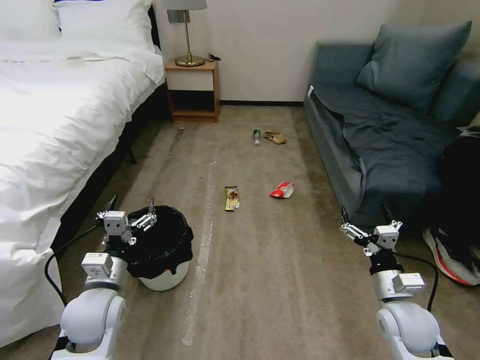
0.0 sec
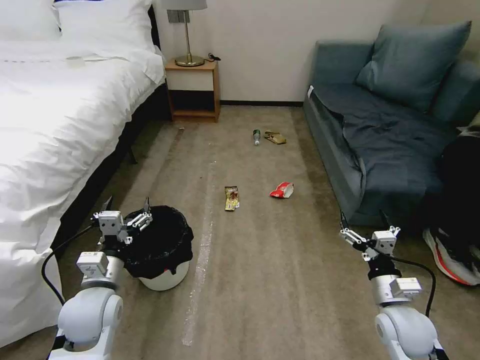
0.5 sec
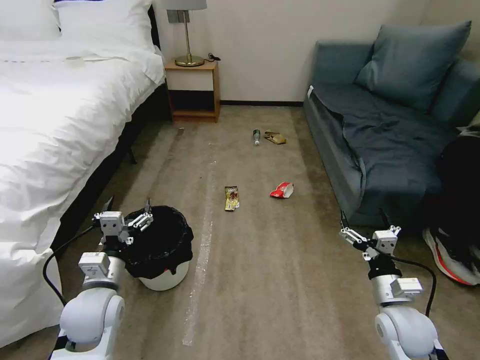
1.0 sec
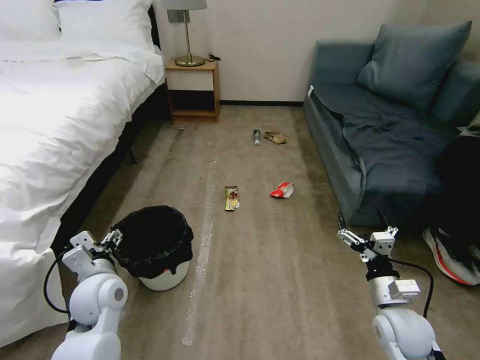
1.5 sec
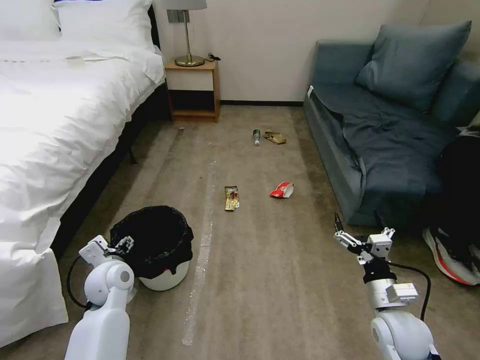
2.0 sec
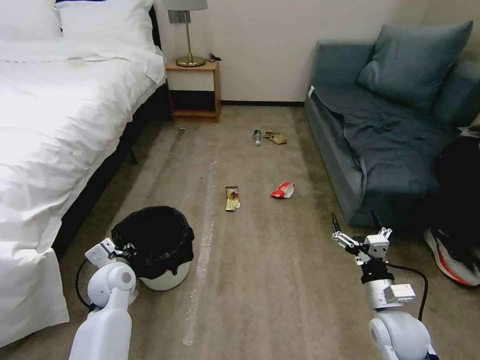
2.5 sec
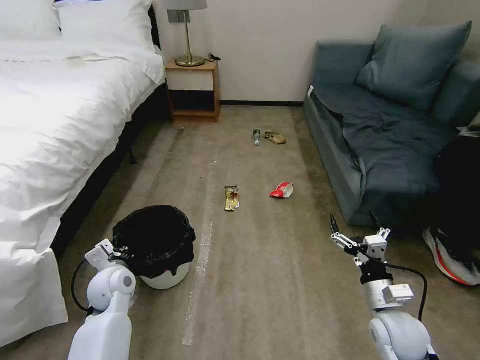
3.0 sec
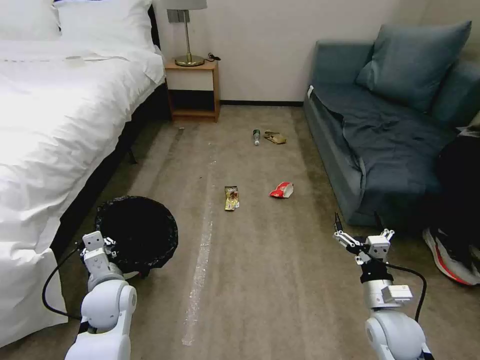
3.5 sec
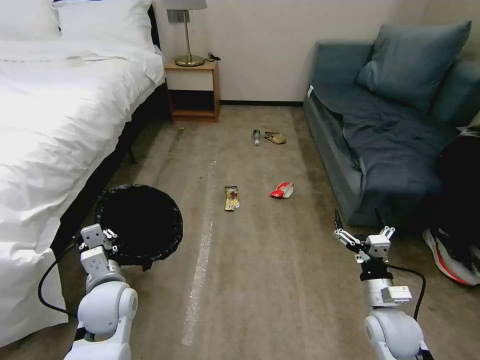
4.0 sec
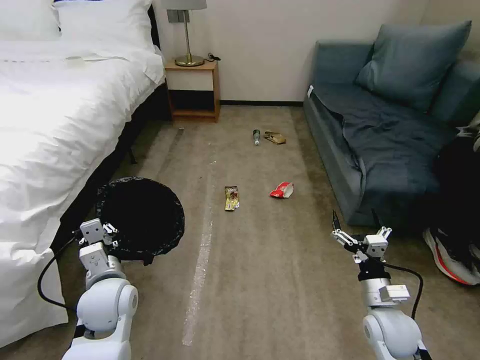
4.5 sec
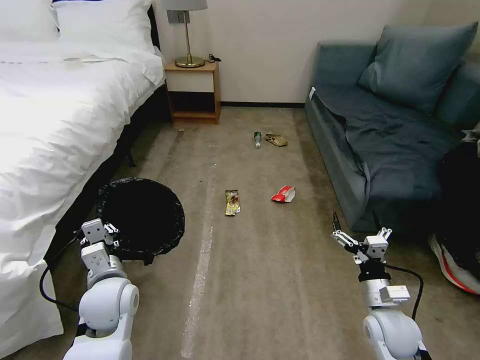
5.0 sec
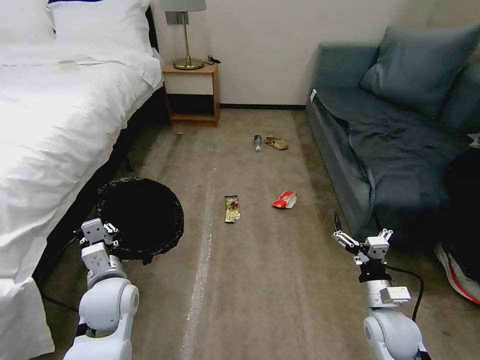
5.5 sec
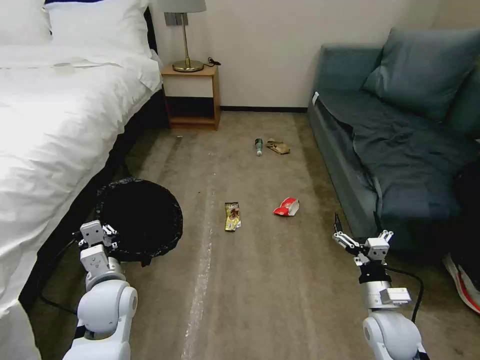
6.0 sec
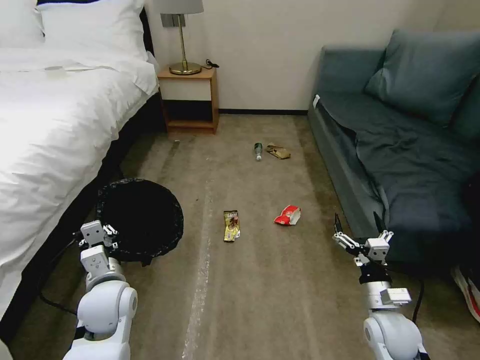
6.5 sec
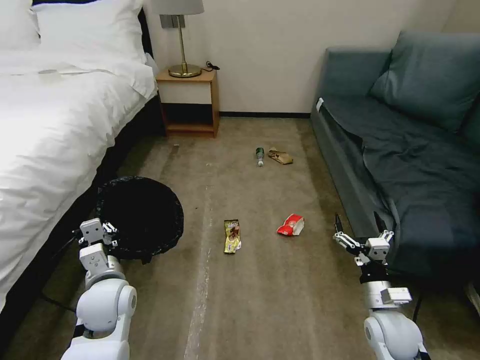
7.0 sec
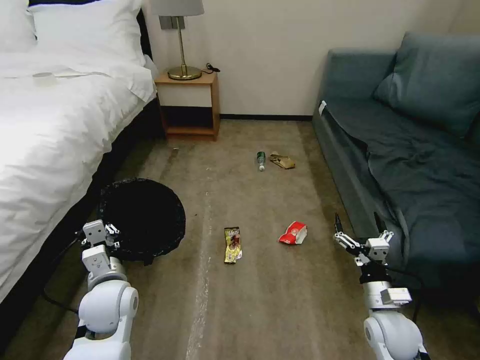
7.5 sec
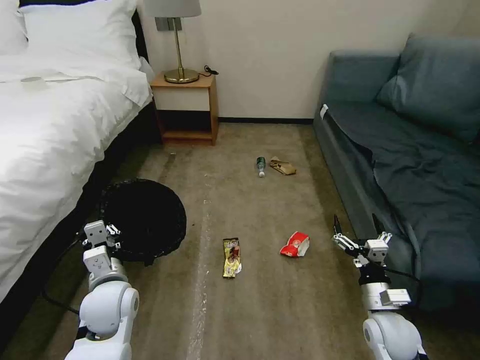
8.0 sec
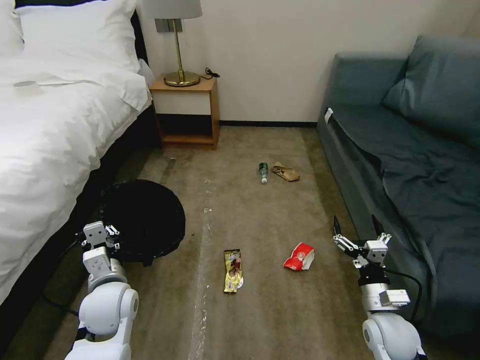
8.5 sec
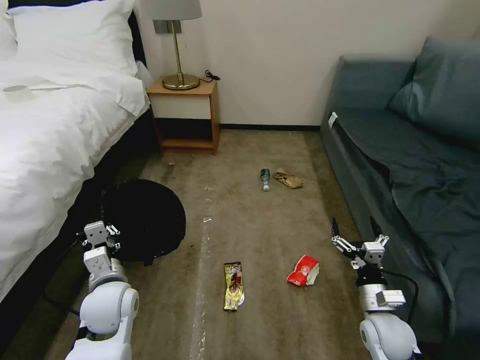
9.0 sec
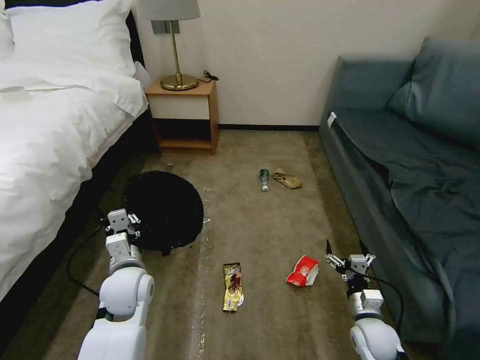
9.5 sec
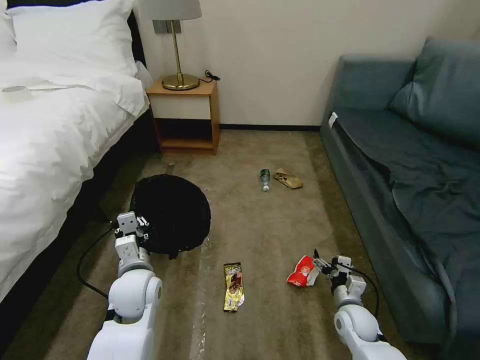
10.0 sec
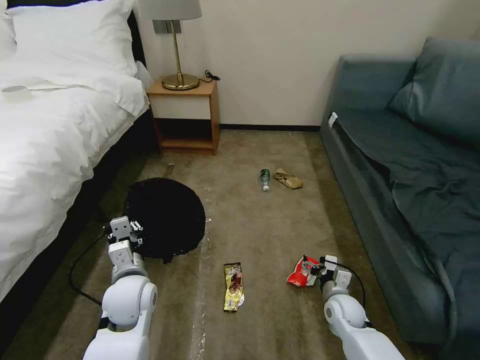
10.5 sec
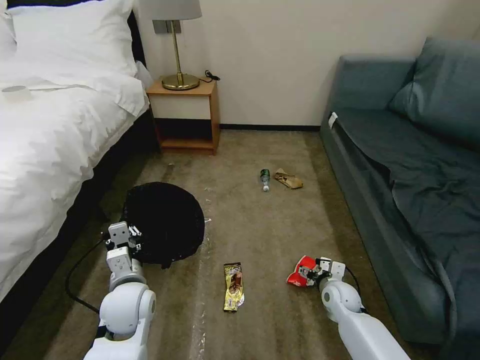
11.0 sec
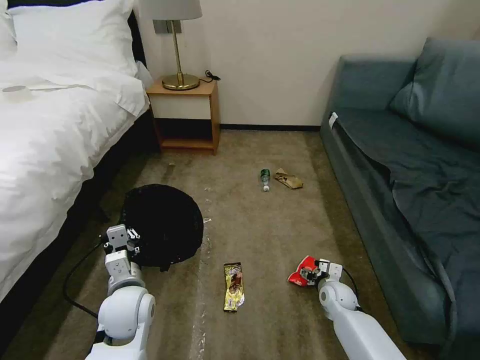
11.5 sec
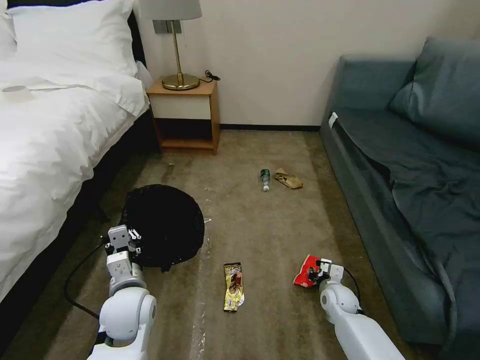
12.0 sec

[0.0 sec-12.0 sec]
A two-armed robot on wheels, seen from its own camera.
Task of the whole recording: Pick up the trash bin, then pick up the garbage on the floor and place it into the trash bin.
2.0 sec to 4.0 sec: The left gripper shifts roughly 5 cm backward, and closes its fingers.
4.0 sec to 6.0 sec: Both grippers stay put.
8.0 sec to 10.0 sec: The left gripper moves about 5 cm. The right gripper moves downward, roughly 10 cm.
10.0 sec to 12.0 sec: The right gripper is displaced forward by roughly 5 cm, and closes its fingers.

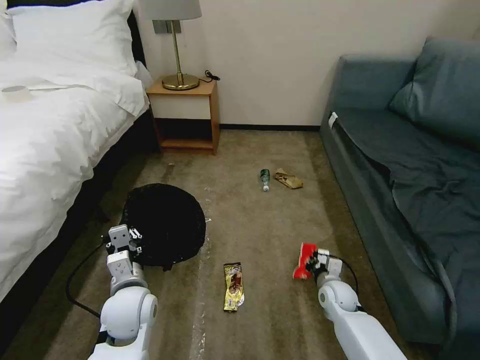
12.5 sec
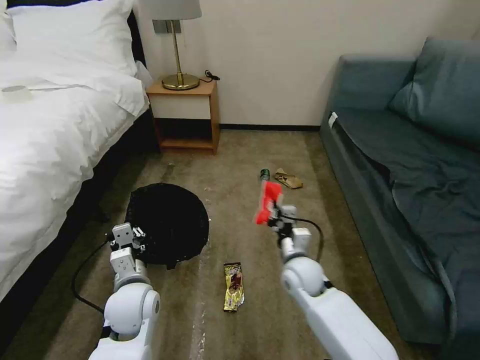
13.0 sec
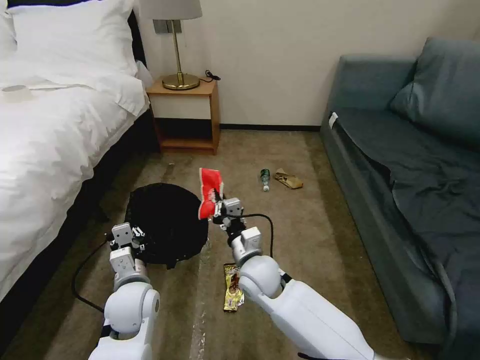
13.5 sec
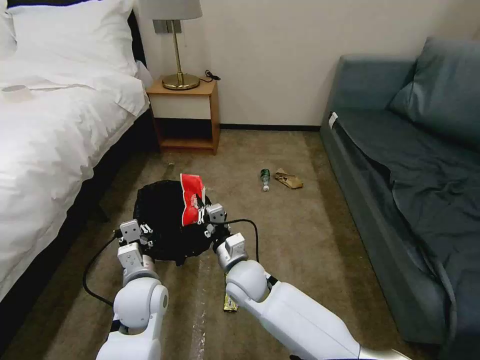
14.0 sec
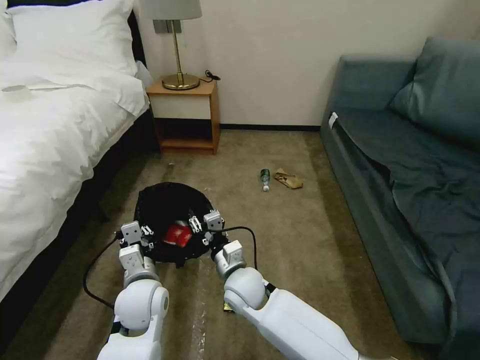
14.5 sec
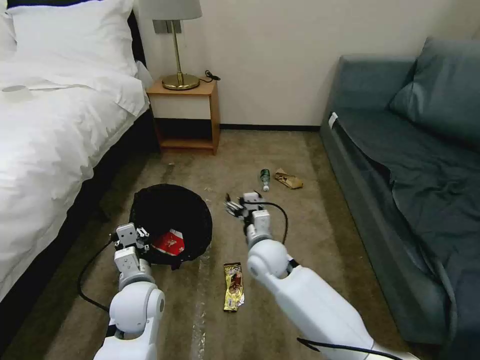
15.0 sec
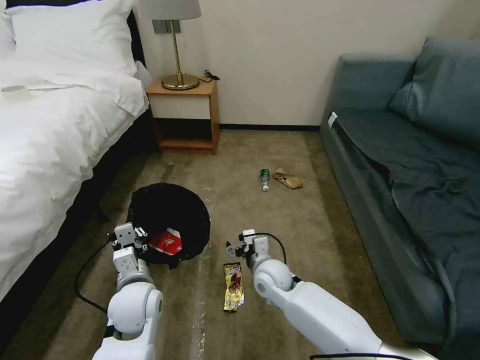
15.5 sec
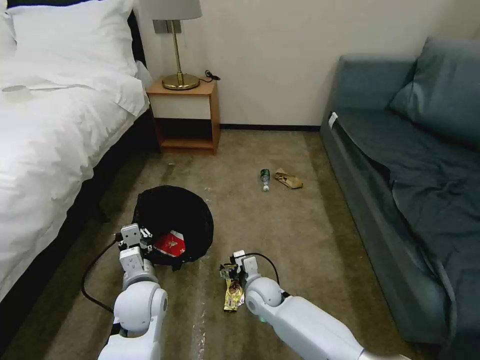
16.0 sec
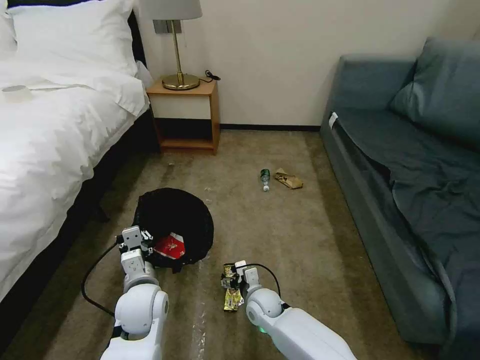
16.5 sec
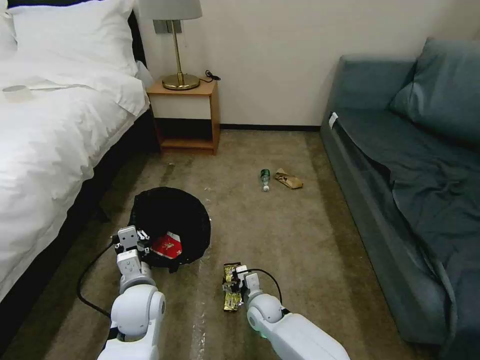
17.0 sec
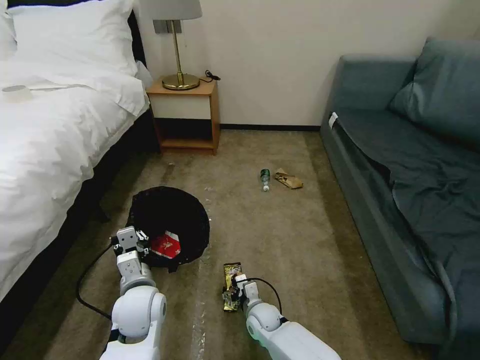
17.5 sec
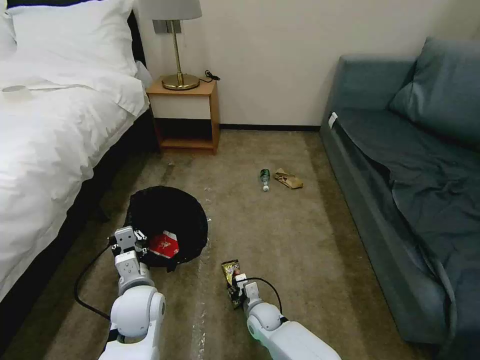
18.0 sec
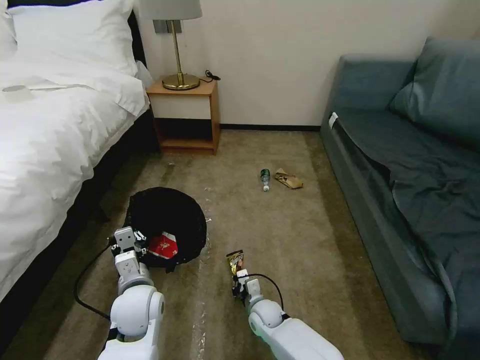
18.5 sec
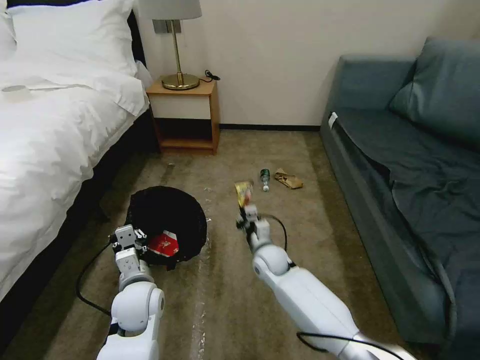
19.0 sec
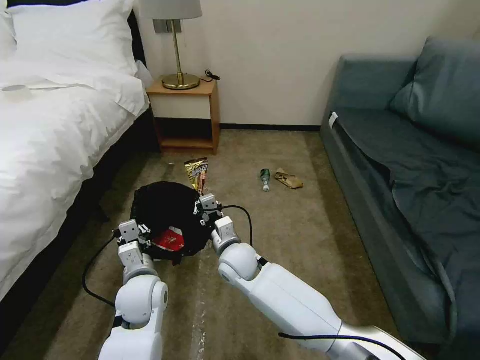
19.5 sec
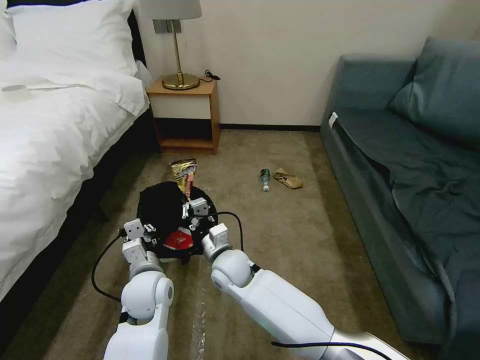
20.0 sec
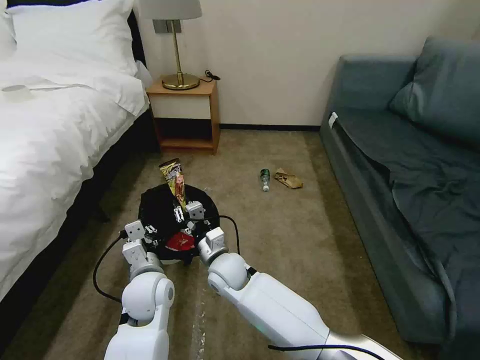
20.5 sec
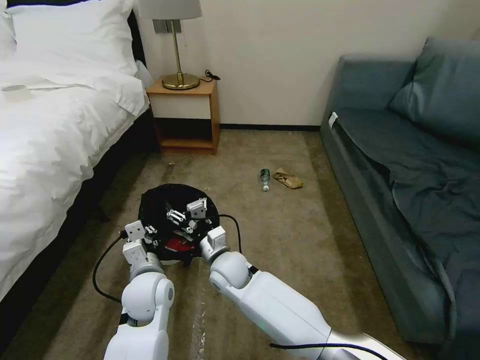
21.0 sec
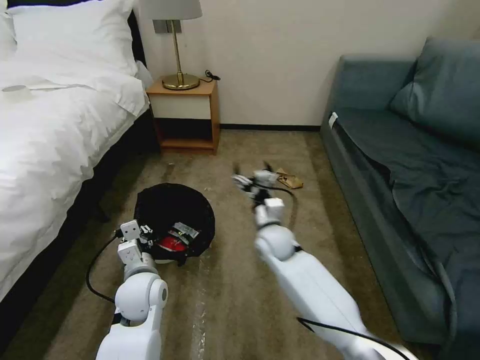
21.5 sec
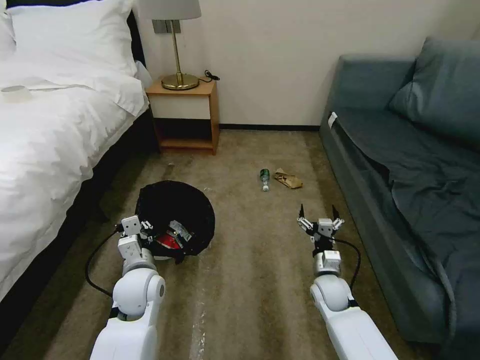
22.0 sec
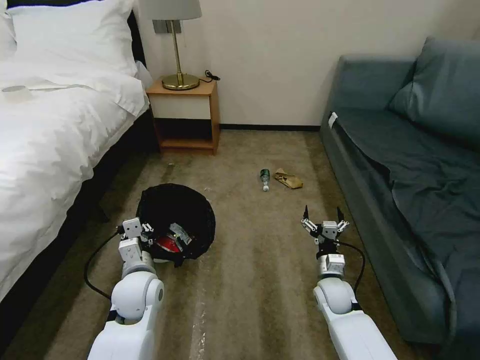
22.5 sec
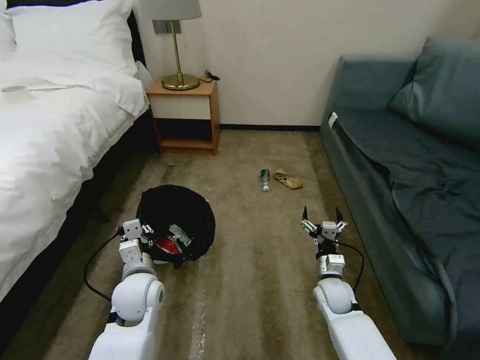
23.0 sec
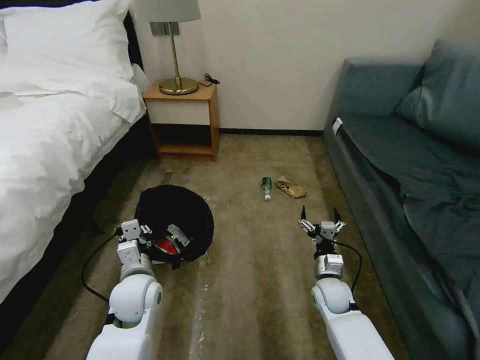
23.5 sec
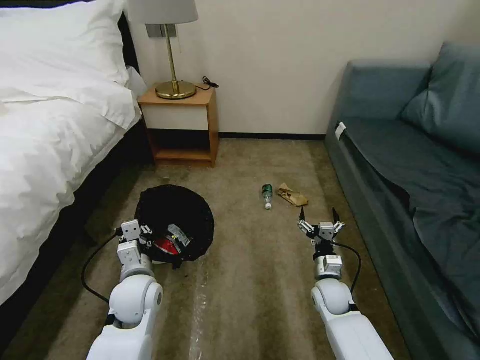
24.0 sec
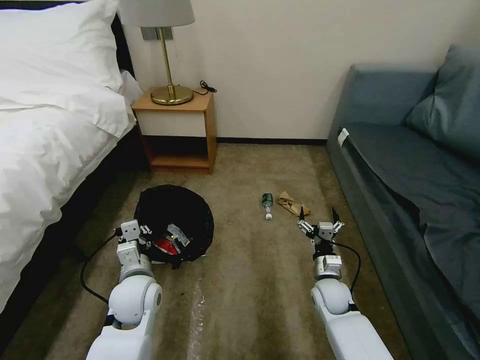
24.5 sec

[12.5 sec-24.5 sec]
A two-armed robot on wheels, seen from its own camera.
Task of the whole recording: Pick up the trash bin, then pick up the garbage on the floor and place it into the trash bin.
12.5 sec to 14.5 sec: The right gripper is displaced to the left and upward by approximately 30 cm, and opens its fingers.
14.5 sec to 16.5 sec: The right gripper travels downward and to the right by about 15 cm, and opens its fingers.
16.5 sec to 18.5 sec: The right gripper shifts by roughly 5 cm, and closes.
18.5 sec to 20.5 sec: The right gripper goes roughly 20 cm upward and to the left.
20.5 sec to 22.5 sec: The right gripper heads to the right, covering about 30 cm, and opens up.

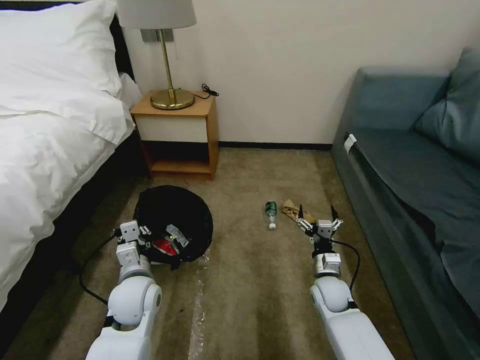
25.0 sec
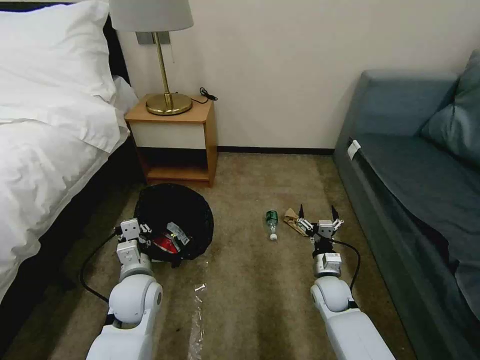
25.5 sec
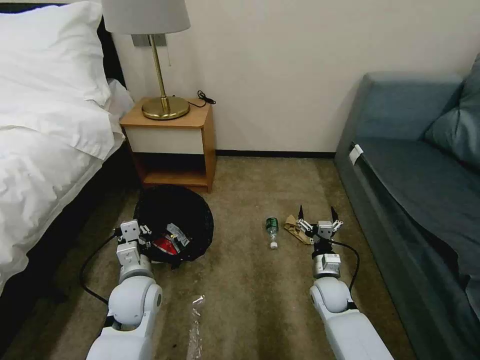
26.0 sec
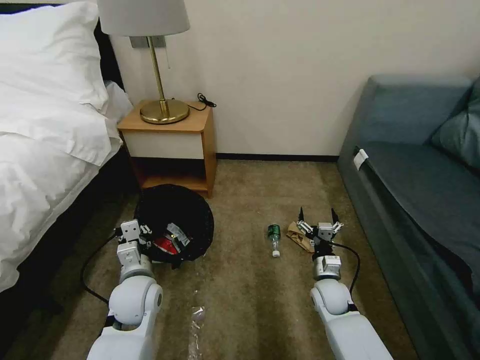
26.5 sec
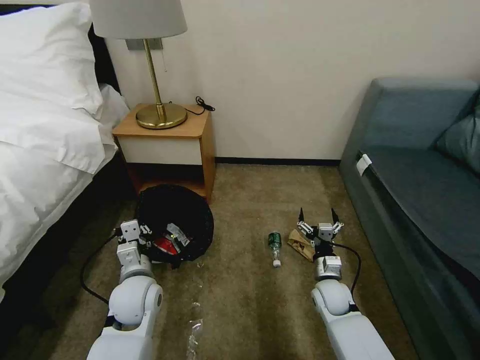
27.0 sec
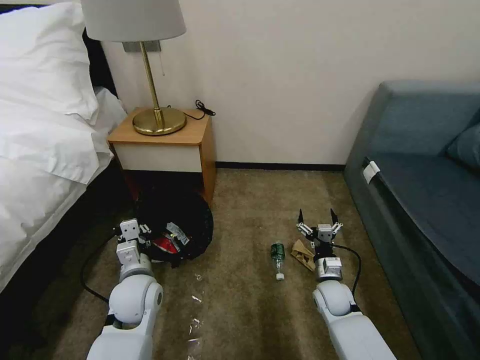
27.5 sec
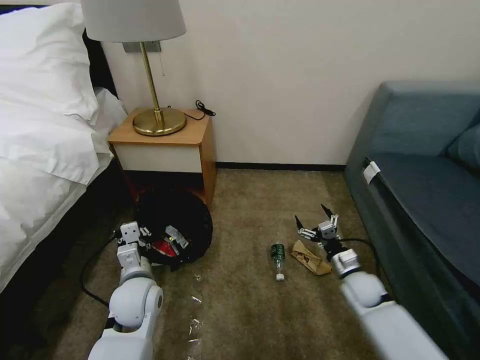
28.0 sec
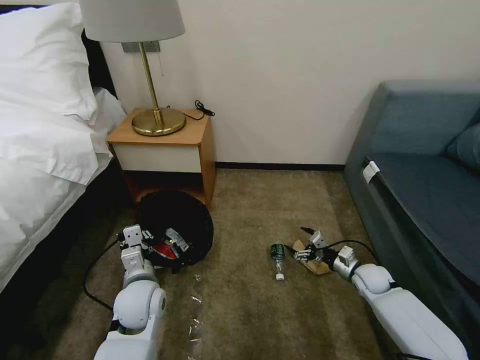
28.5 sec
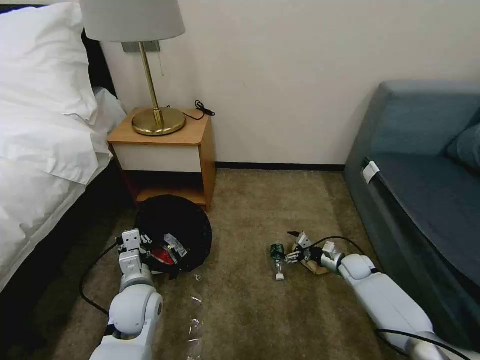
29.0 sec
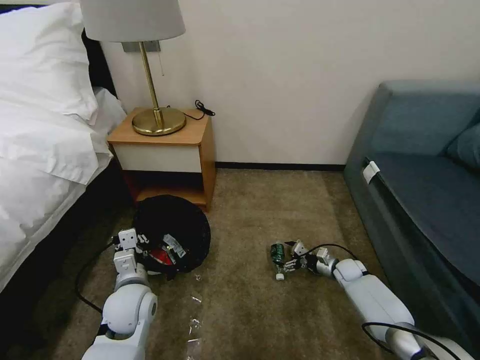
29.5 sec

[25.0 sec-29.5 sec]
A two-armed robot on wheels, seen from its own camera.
Task of the whole recording: Pick up the trash bin, then pick up the garbage on the floor and place it into the trash bin.
27.0 sec to 29.5 sec: The right gripper travels to the right, forward and downward by some 15 cm.
